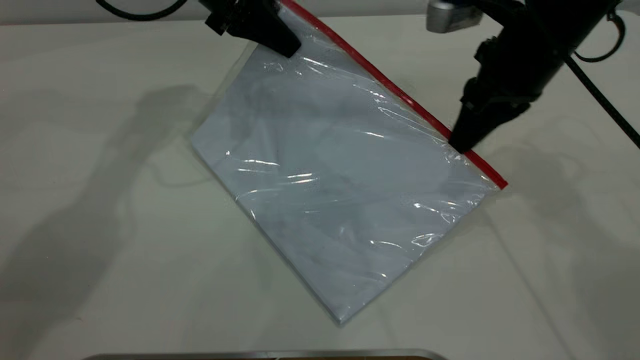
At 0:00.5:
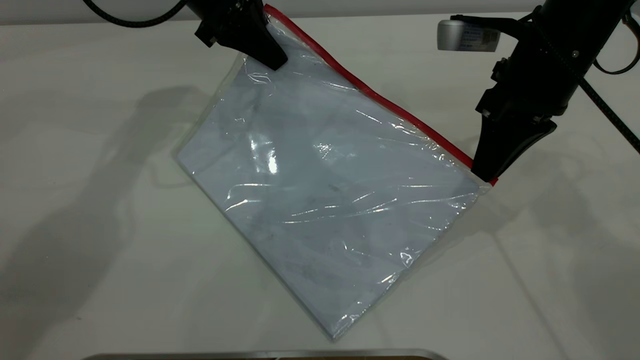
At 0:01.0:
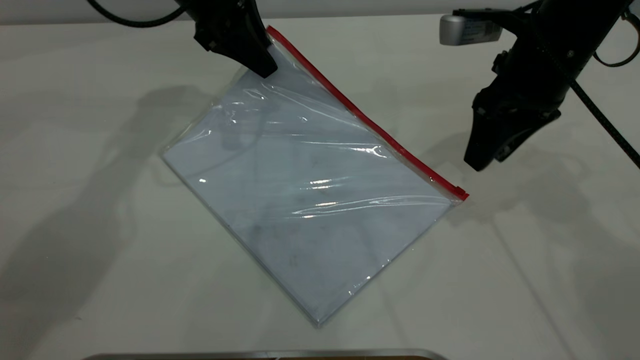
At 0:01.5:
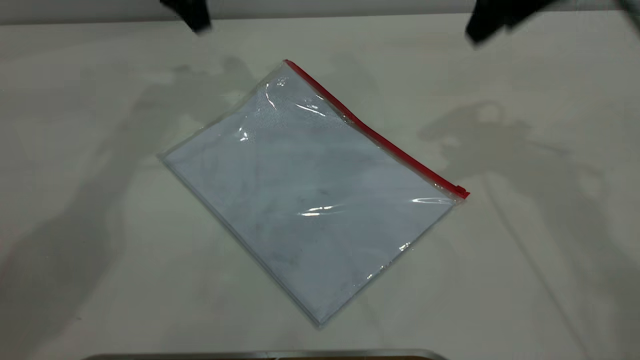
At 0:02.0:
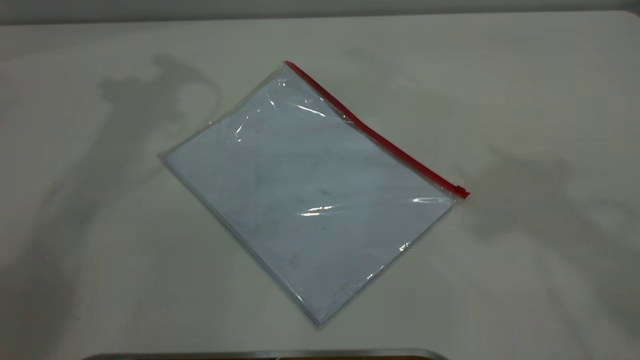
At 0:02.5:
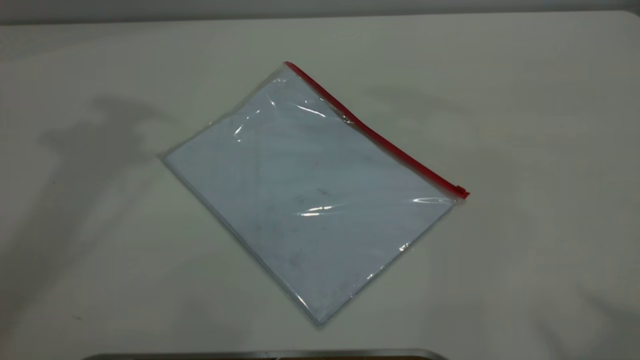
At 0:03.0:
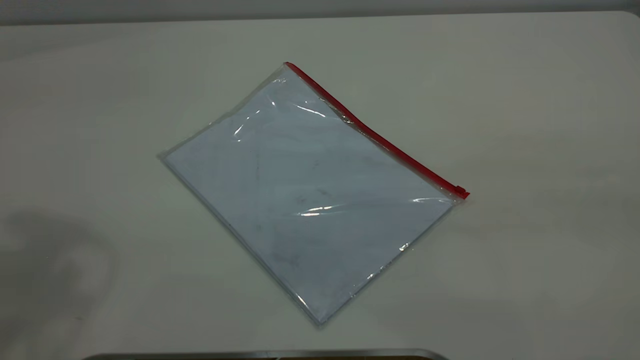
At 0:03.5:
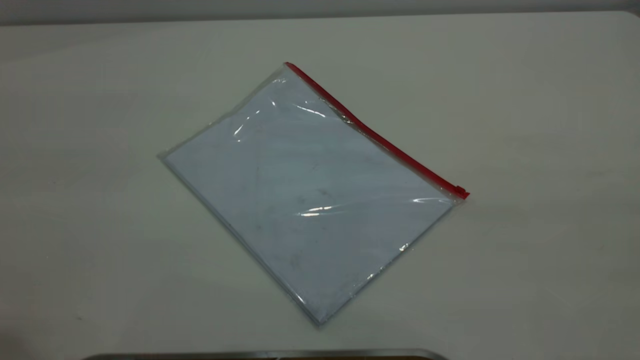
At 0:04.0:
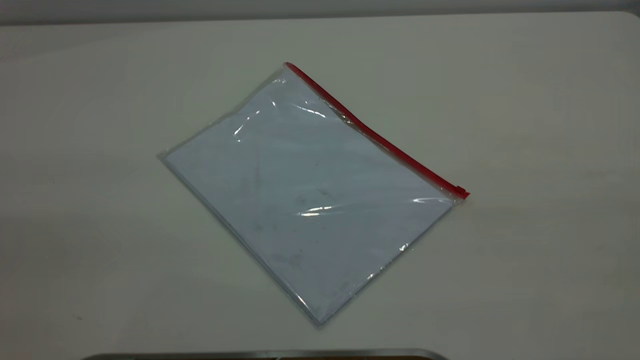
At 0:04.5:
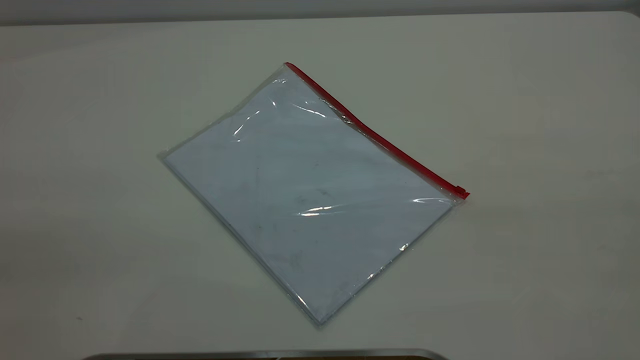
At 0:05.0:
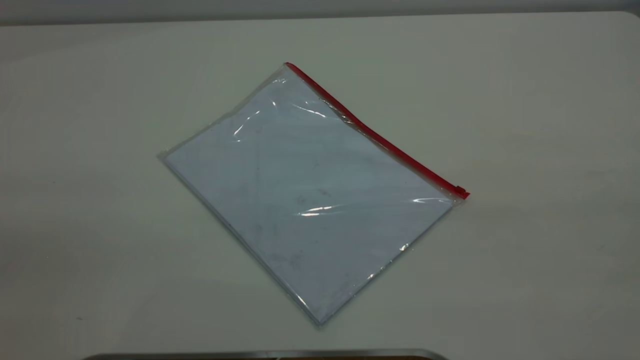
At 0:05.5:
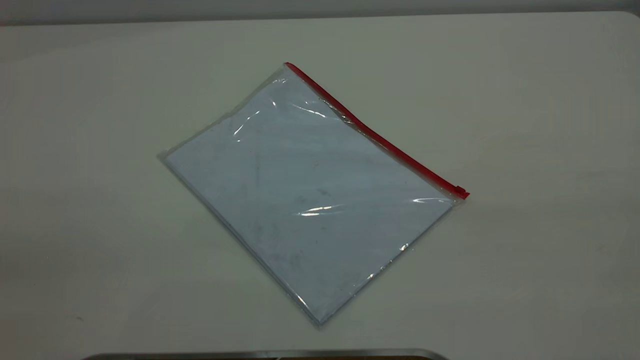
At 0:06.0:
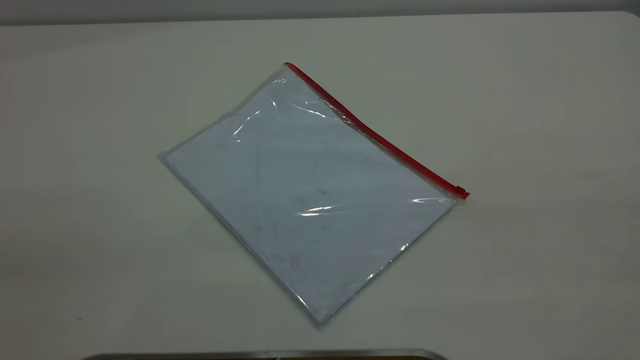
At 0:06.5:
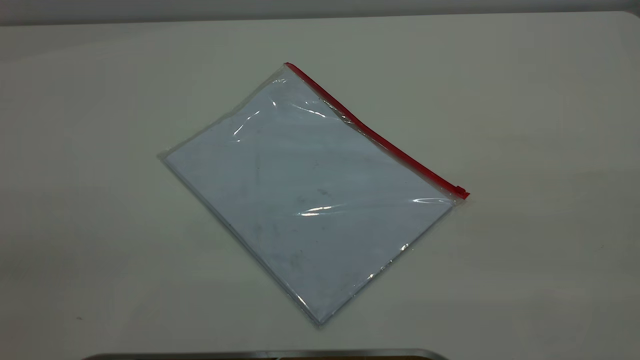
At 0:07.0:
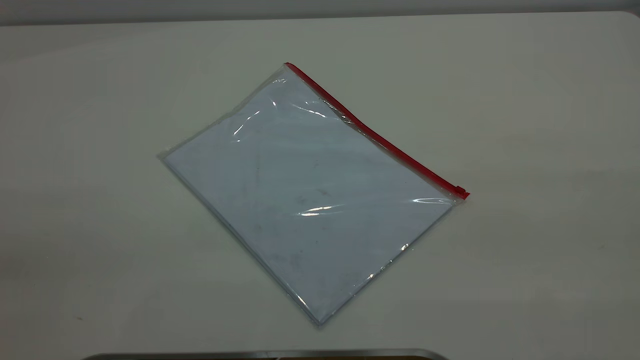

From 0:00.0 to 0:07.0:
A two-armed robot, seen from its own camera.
From 0:00.0 to 0:02.0: The two grippers go some 25 cm upward. The right gripper opens up; the left gripper opens.
